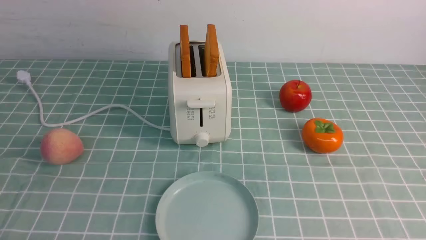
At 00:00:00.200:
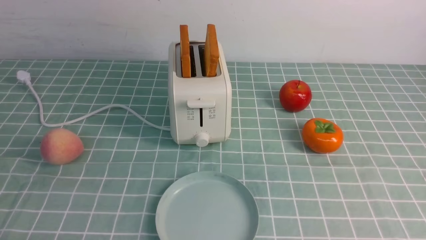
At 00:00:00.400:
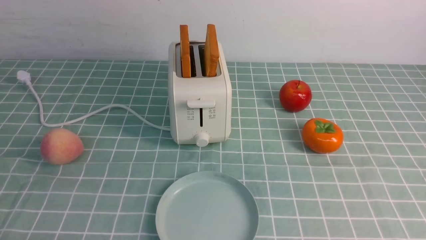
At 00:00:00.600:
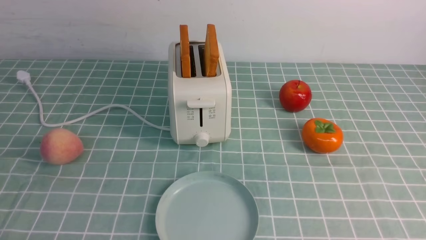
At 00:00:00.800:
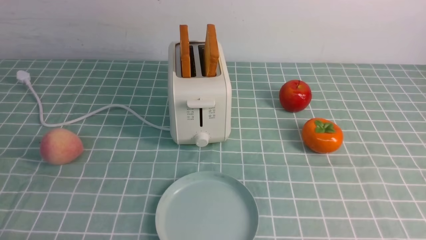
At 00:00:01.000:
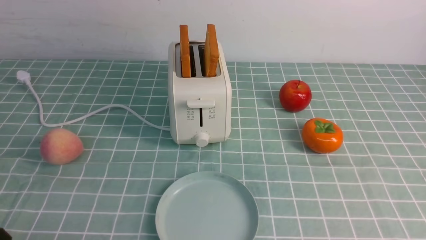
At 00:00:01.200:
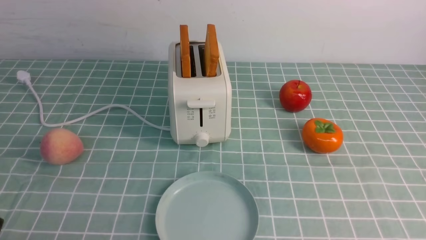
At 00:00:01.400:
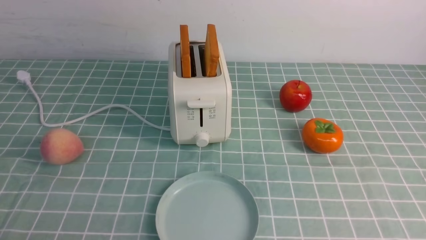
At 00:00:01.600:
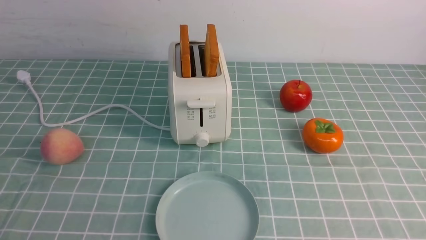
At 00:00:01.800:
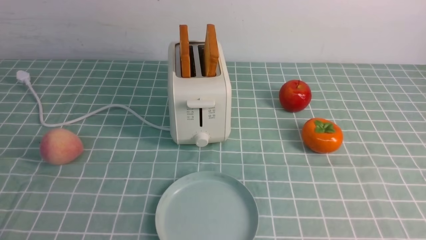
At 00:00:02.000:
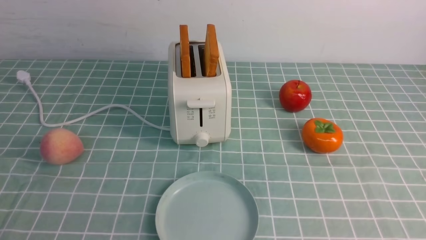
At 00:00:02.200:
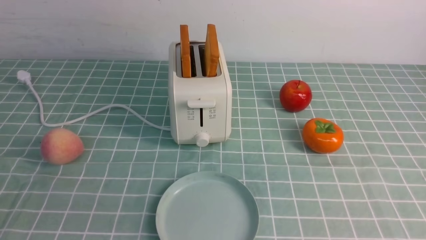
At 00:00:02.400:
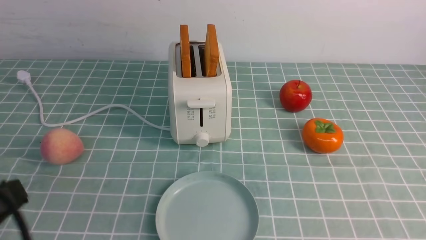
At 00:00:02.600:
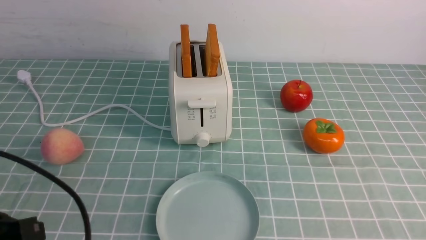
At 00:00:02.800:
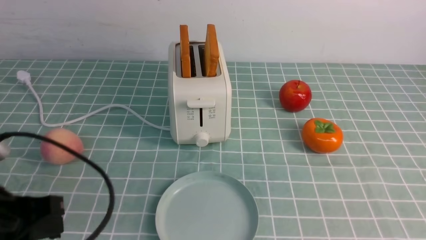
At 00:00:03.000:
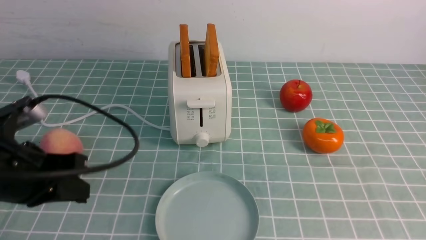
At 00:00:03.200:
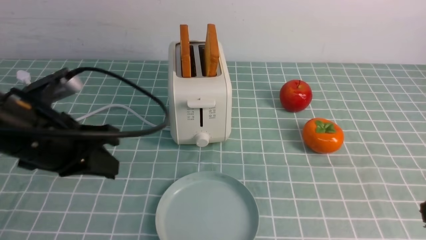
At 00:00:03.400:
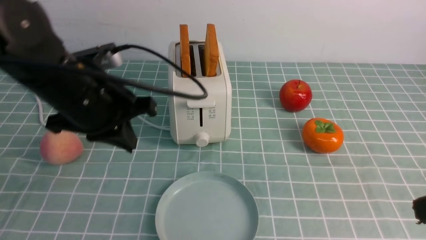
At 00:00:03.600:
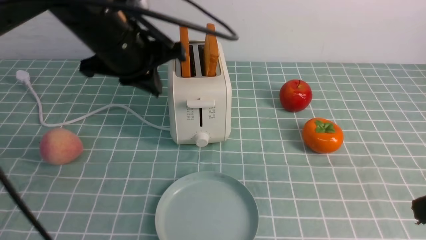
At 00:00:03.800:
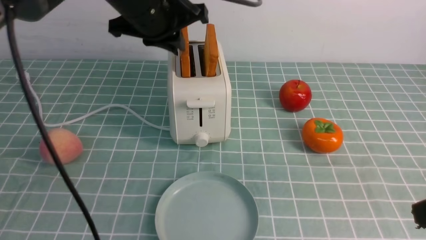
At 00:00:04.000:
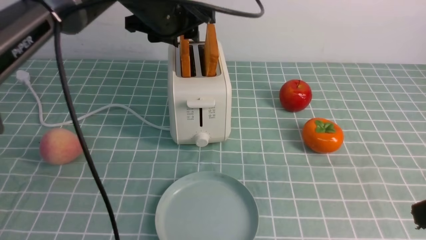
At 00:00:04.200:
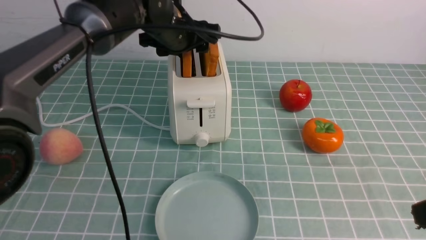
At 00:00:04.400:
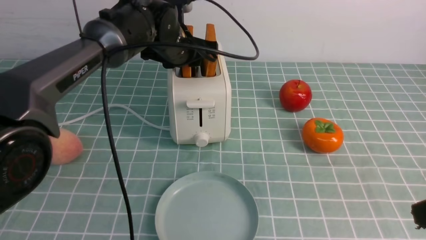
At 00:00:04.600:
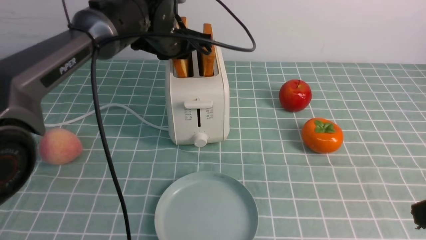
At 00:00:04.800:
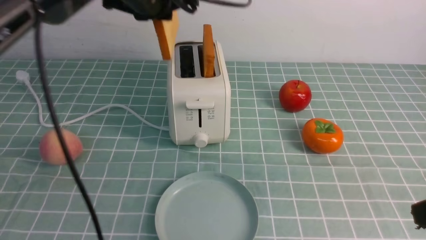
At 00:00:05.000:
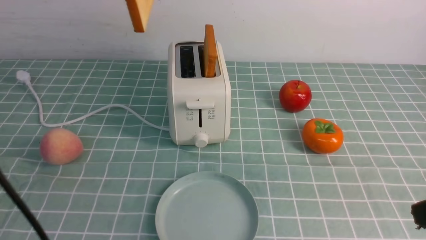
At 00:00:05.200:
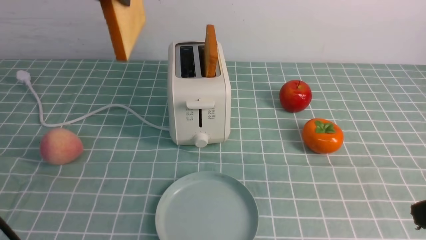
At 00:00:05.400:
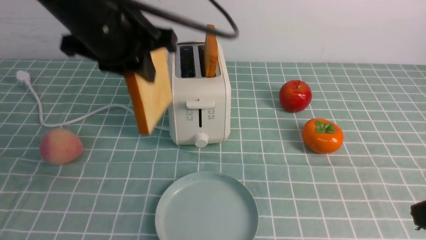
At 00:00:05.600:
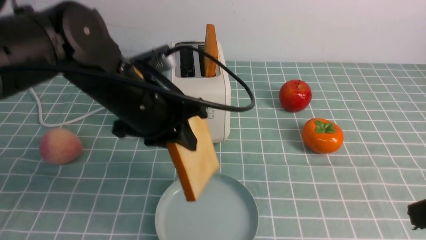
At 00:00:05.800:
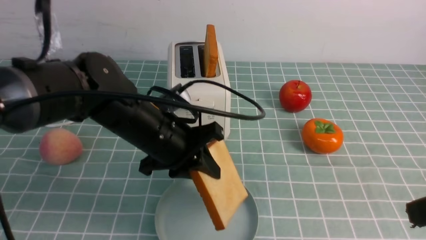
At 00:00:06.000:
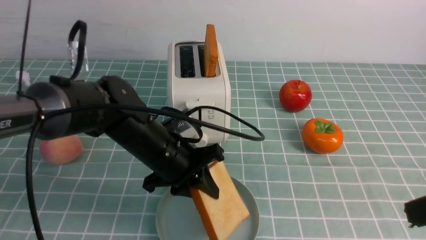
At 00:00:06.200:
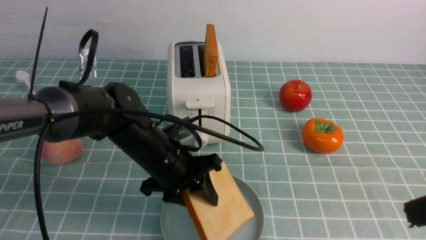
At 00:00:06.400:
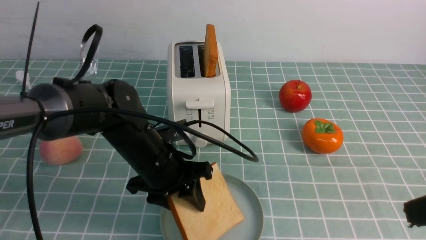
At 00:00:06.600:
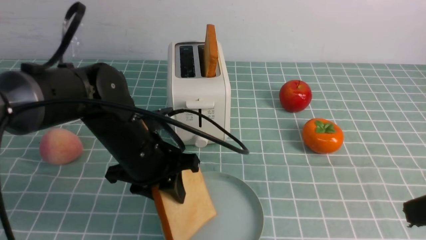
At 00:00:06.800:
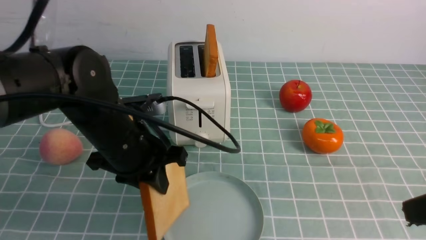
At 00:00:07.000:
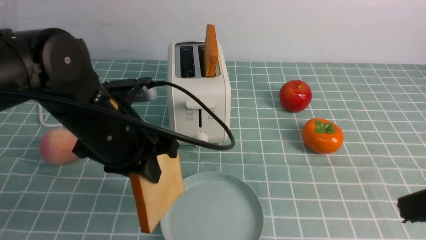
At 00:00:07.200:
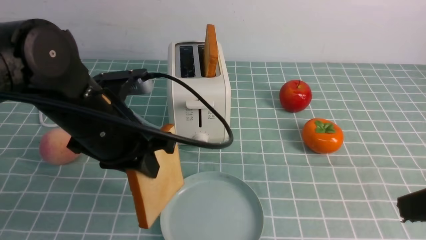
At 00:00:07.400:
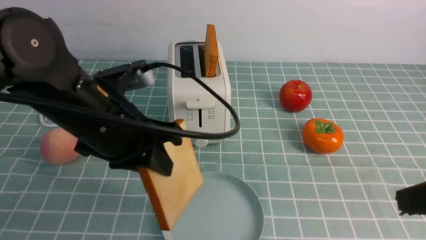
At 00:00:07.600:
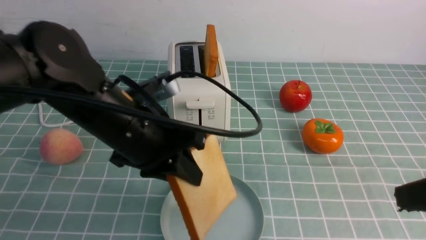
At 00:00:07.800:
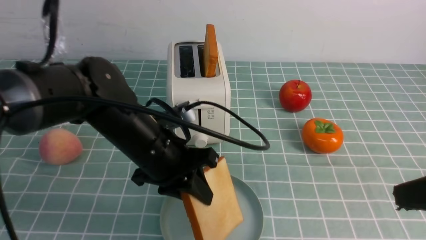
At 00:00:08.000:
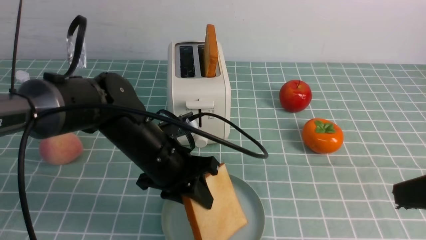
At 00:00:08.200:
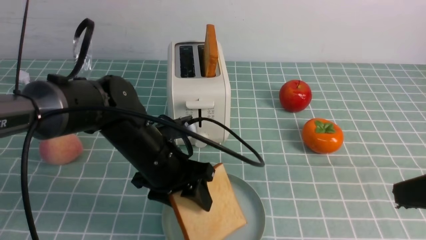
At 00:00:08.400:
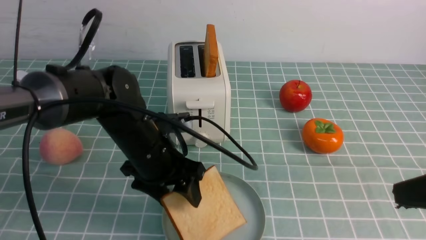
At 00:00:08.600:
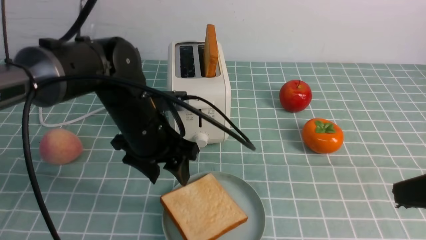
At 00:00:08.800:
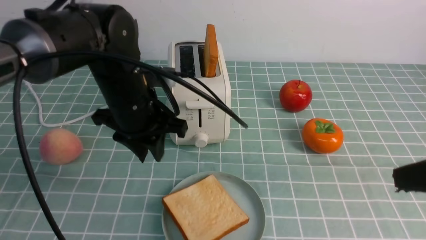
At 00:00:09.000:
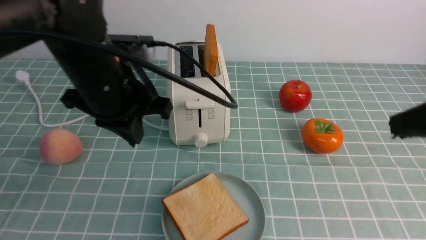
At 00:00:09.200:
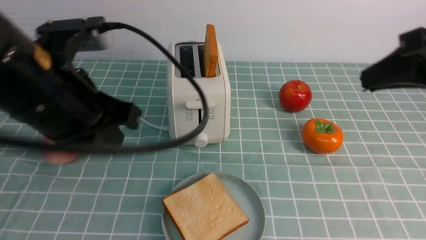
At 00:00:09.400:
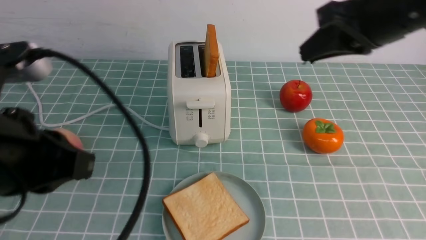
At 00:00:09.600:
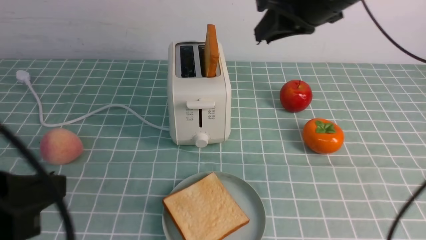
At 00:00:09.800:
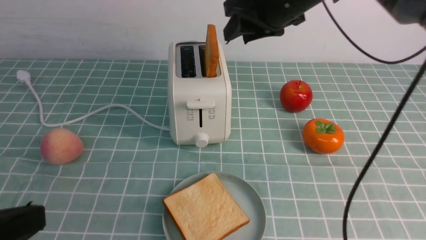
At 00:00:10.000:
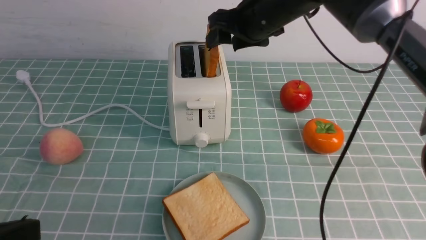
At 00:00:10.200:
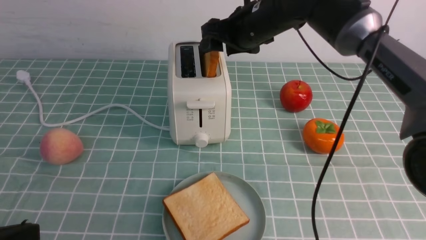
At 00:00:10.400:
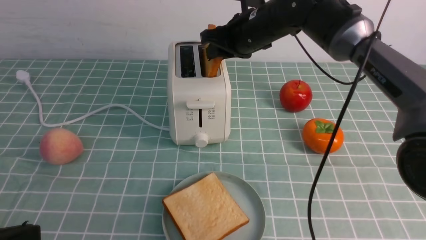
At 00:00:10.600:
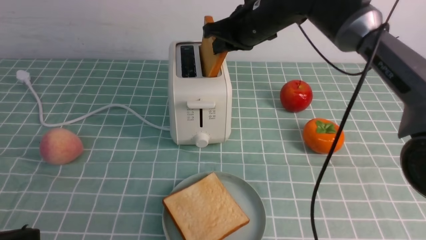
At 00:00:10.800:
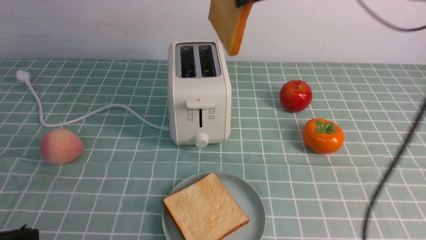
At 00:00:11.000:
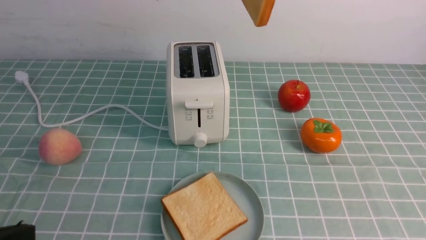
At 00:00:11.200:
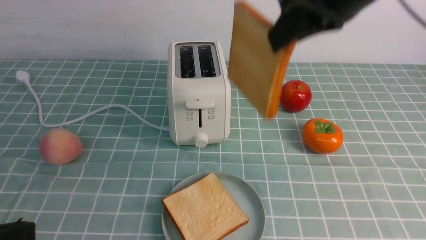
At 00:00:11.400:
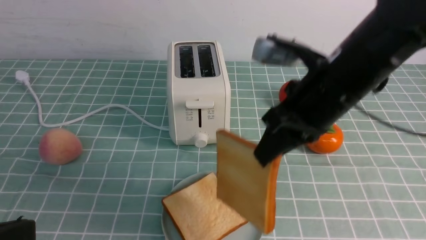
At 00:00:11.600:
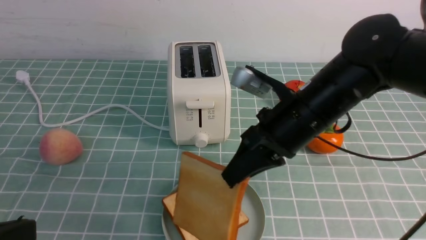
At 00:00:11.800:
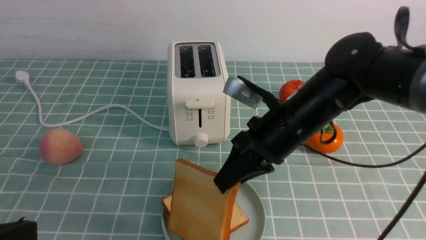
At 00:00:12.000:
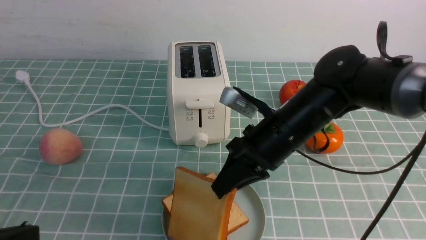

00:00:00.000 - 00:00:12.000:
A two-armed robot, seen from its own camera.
Task of the whole recording: take toasted bread from bread machine on blue coffee table place on plate.
Step, 00:00:00.000 - 00:00:05.200: use the left arm to take out a slice of bread.
Step, 00:00:05.400 - 00:00:08.600: use the left arm to put a slice of bread into the empty plate.
Step, 00:00:08.800 - 00:00:10.800: use the right arm to take out a slice of bread.
00:00:01.600 - 00:00:03.000: The left gripper moves forward and upward, roughly 15 cm, and closes.
00:00:03.000 - 00:00:04.400: The right gripper moves forward, approximately 5 cm. Meanwhile the left gripper moves forward and to the right, about 30 cm, and opens.
00:00:04.400 - 00:00:06.000: The left gripper travels backward and downward by roughly 20 cm, and closes its fingers.
00:00:06.000 - 00:00:07.600: The left gripper travels upward by about 5 cm, and opens, then closes again.
00:00:07.600 - 00:00:09.000: The left gripper reaches some 10 cm downward, then returns, and opens, then closes again. The right gripper changes place by about 5 cm.
00:00:09.000 - 00:00:10.400: The left gripper shifts approximately 25 cm backward and to the left. Meanwhile the right gripper goes some 35 cm forward and to the left, and opens its fingers.
00:00:10.400 - 00:00:12.000: The right gripper is displaced backward by roughly 15 cm, reaches about 15 cm upward, then returns, and closes its fingers.

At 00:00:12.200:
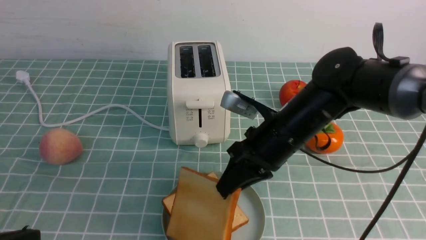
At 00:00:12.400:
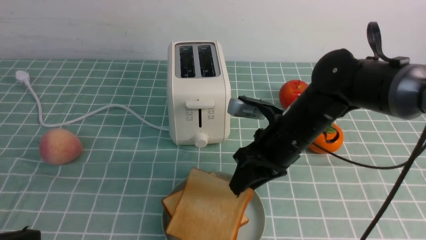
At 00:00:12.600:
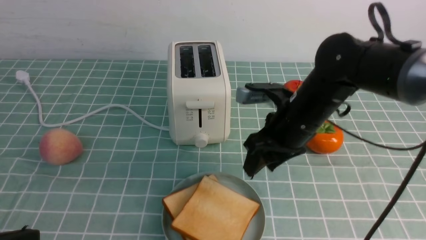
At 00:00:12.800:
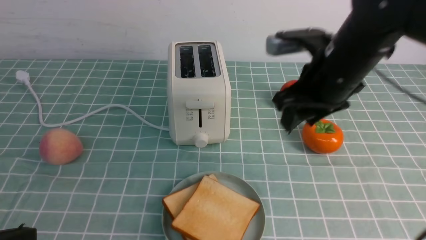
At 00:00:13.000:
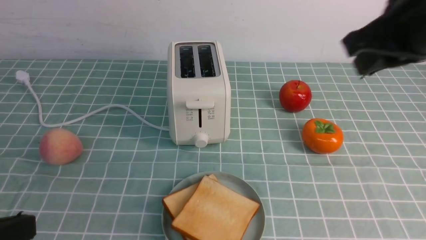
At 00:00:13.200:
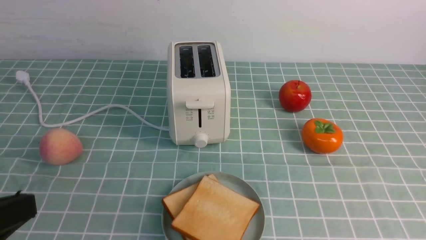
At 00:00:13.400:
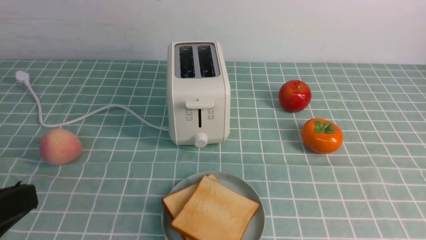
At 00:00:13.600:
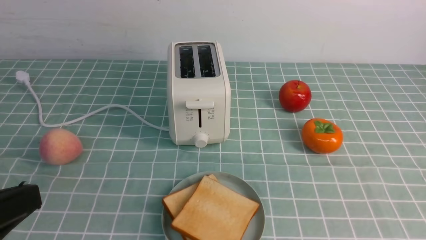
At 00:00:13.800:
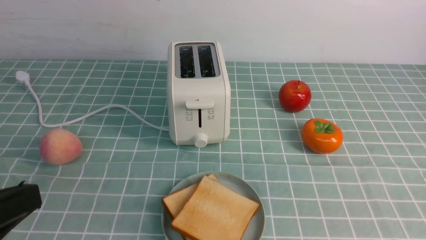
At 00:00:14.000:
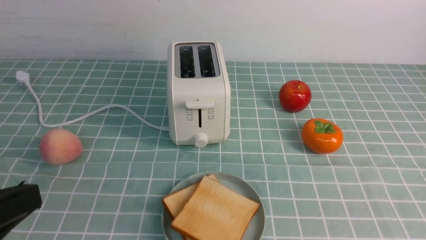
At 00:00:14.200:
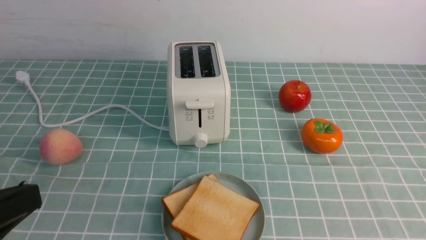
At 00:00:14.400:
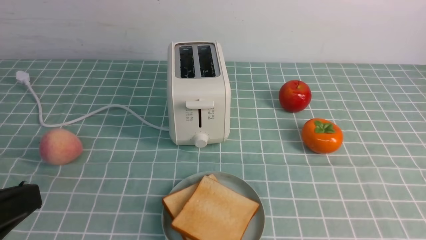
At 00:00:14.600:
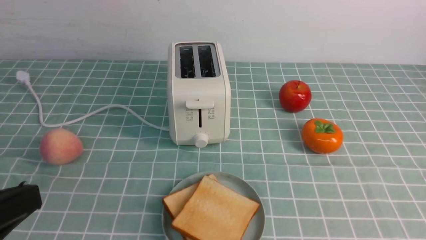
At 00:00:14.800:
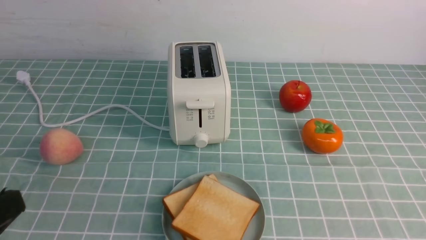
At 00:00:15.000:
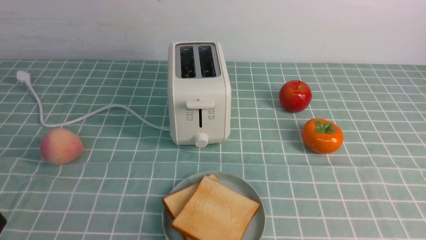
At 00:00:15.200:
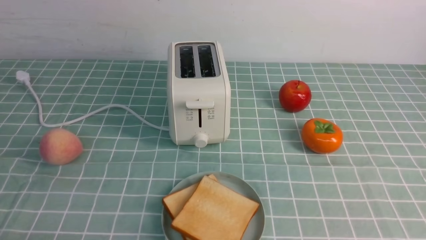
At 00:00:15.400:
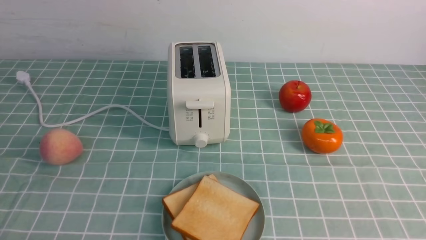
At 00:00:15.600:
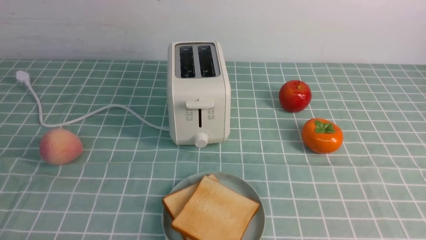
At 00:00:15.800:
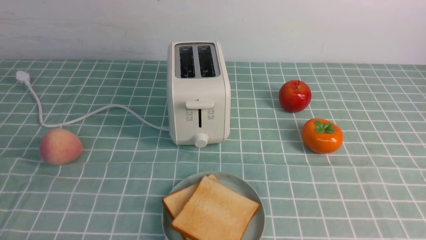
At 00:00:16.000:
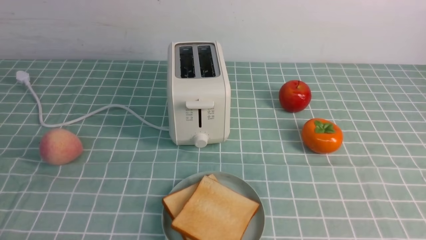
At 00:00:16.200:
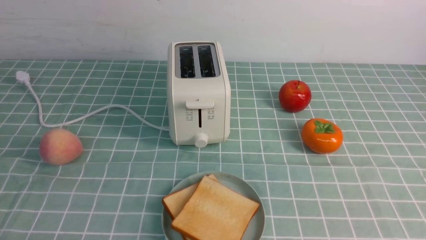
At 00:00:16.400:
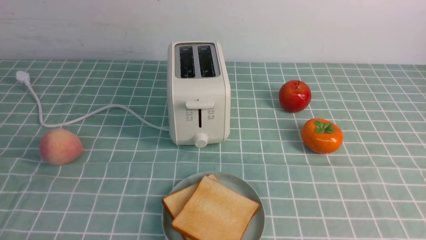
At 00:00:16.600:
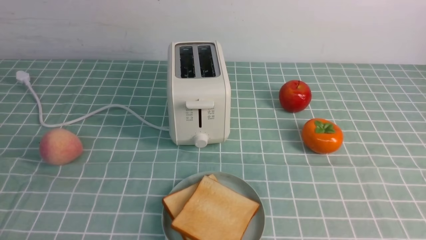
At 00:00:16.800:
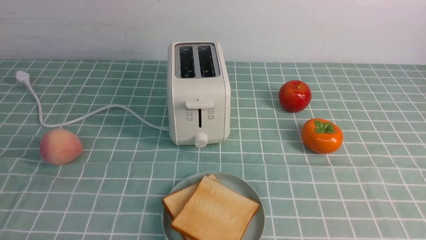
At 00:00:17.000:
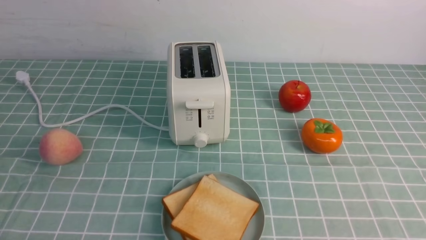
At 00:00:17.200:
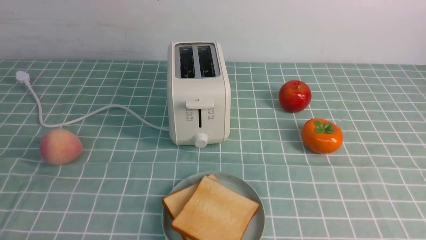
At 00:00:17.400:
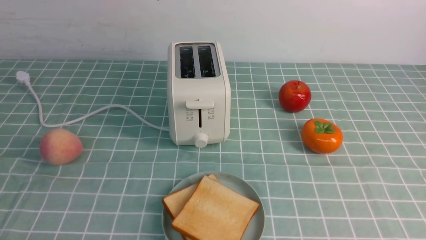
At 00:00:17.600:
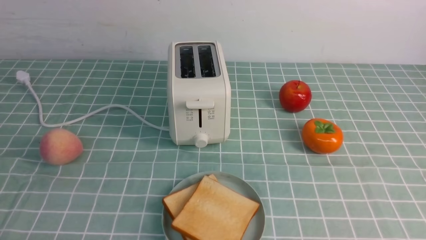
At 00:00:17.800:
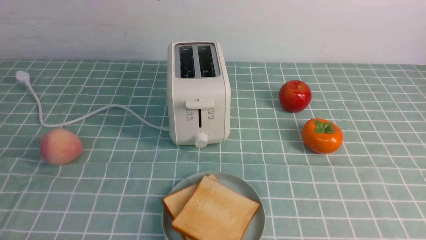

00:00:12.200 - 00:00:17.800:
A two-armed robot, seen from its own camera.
Task of the whole recording: take toasted bread from bread machine on blue coffee table place on plate.
00:00:12.200 - 00:00:13.600: The right gripper goes some 35 cm backward, to the right and upward, and opens, then closes again.
00:00:13.600 - 00:00:15.000: The left gripper travels downward by roughly 5 cm.
